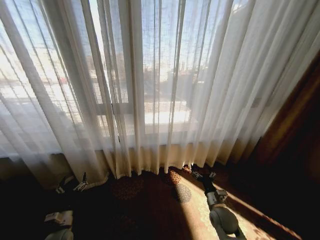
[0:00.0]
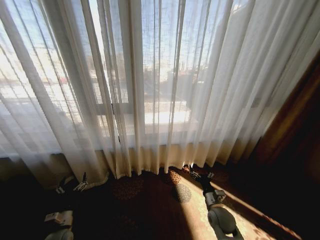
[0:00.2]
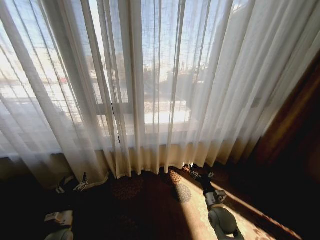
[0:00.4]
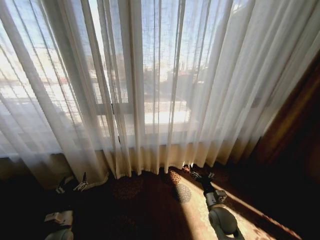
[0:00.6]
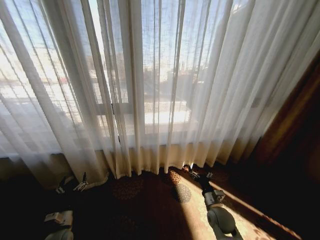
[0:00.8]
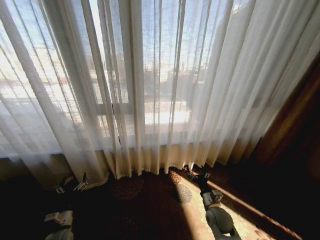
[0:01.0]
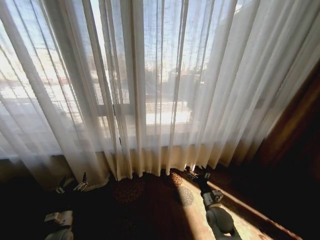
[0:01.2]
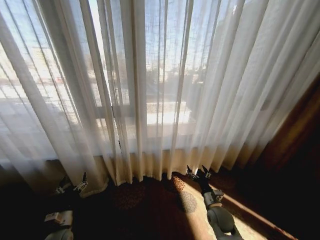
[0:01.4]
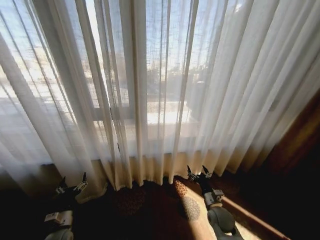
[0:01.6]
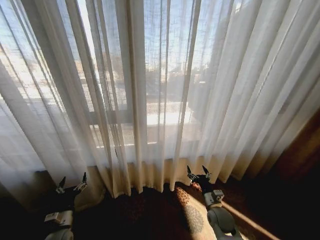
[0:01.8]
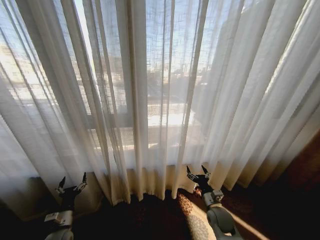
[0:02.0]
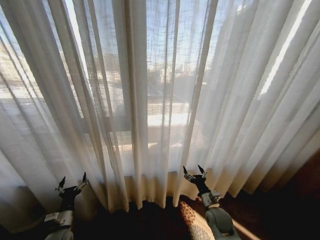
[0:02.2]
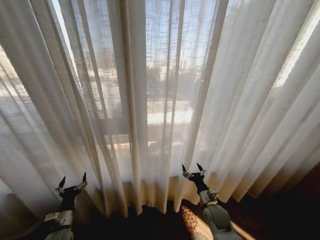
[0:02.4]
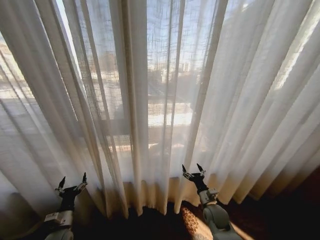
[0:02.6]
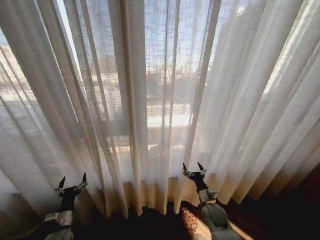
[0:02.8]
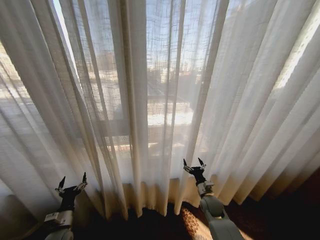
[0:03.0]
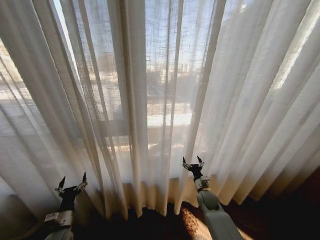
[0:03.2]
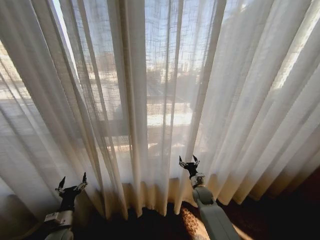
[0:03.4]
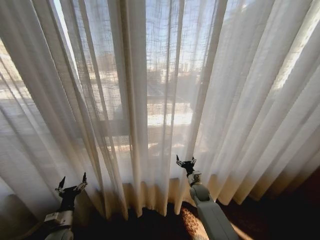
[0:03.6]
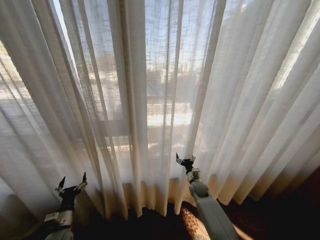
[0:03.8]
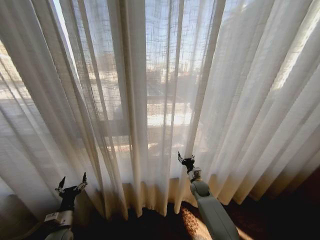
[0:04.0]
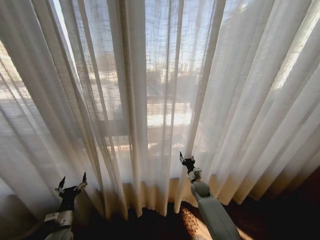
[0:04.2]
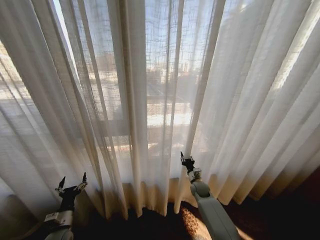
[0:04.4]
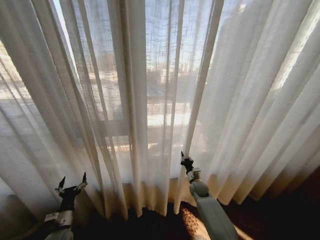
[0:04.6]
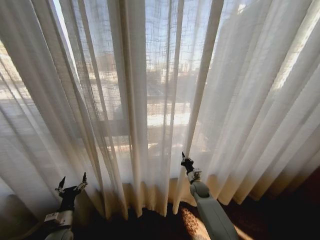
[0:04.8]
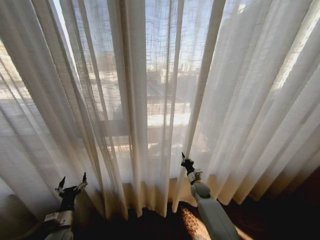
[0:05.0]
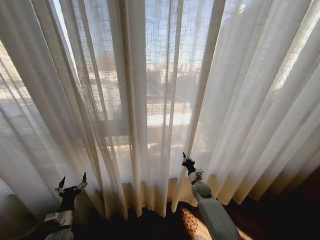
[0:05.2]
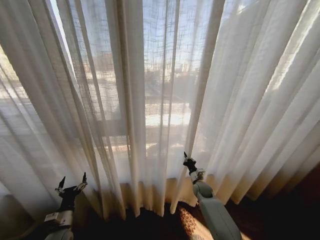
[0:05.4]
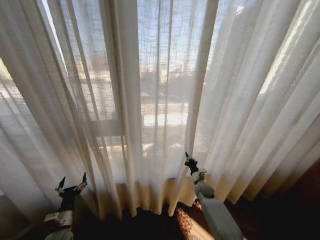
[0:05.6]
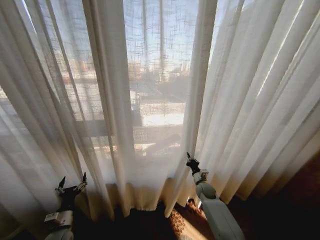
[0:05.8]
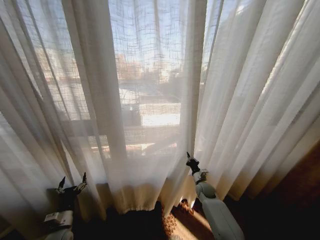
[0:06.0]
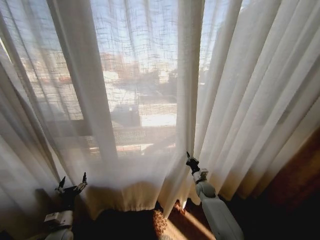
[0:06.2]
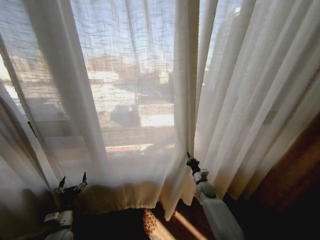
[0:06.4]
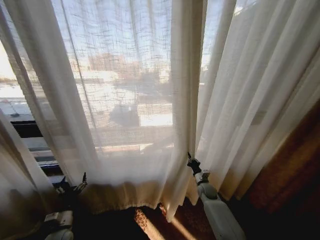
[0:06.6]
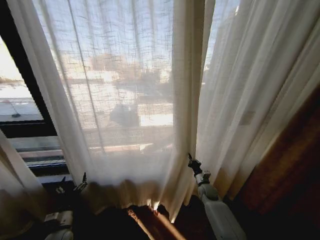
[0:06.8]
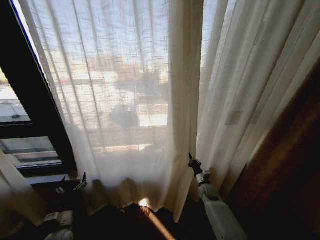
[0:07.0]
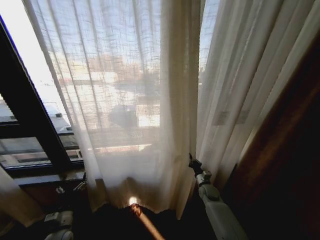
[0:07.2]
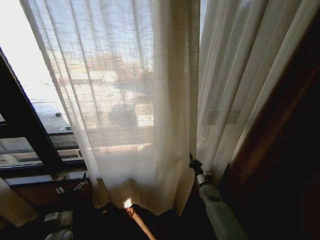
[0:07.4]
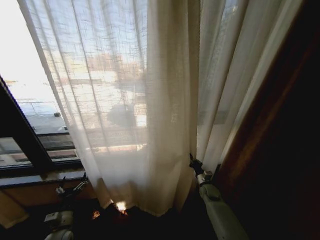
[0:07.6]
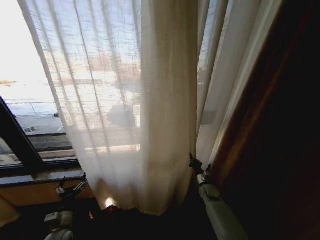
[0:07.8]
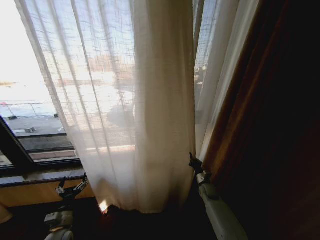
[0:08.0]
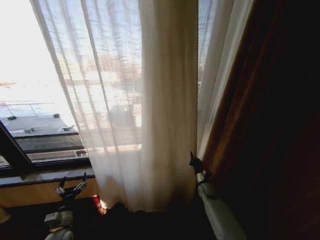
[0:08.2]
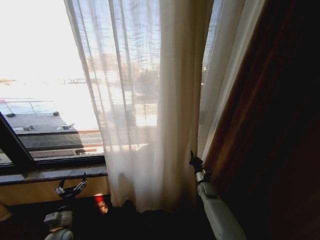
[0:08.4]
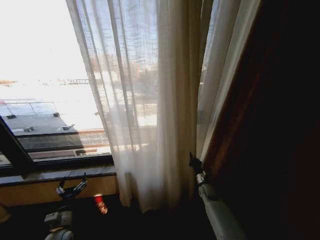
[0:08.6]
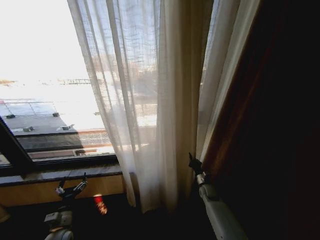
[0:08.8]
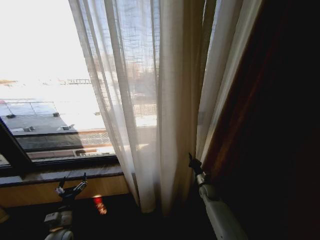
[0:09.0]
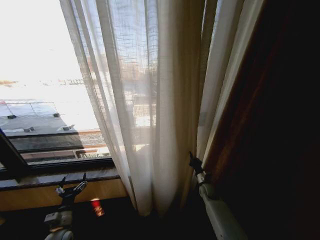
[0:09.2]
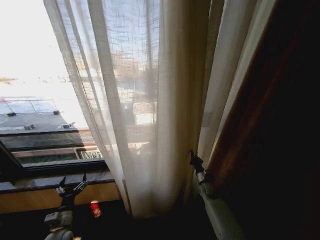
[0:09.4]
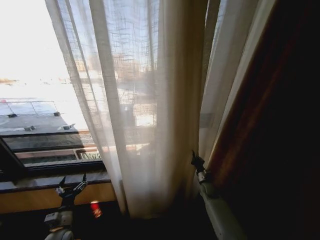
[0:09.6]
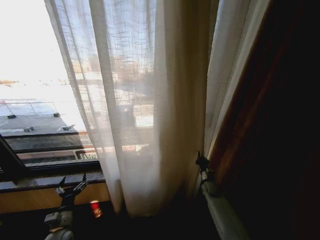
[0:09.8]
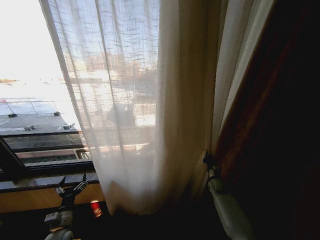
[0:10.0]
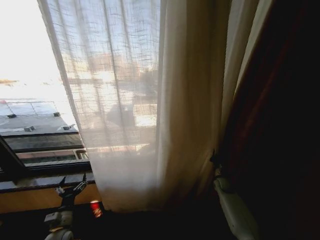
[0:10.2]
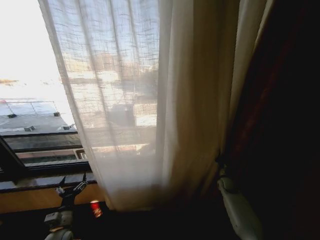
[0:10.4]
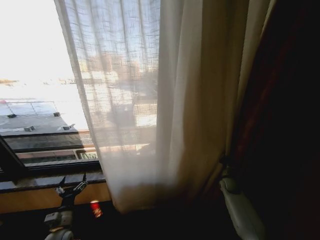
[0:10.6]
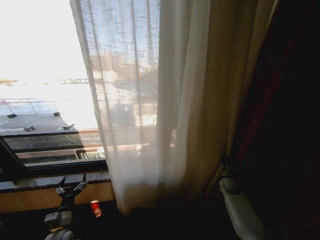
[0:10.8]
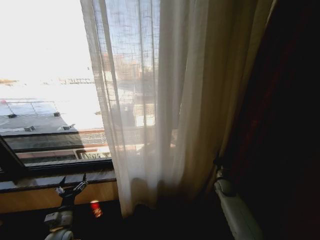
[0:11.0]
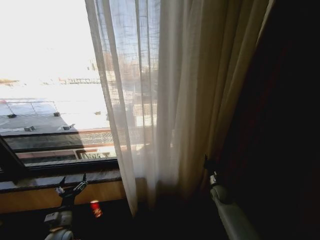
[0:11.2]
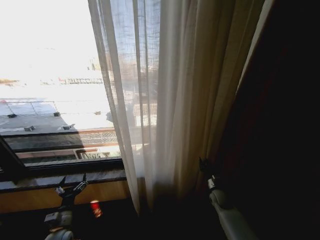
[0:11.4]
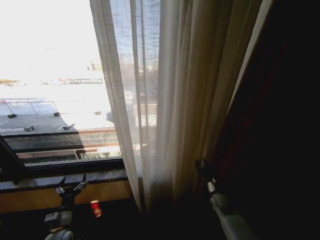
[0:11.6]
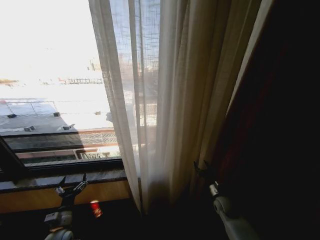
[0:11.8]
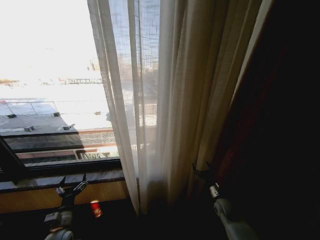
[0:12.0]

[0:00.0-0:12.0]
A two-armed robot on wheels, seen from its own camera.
Task of the whole recording: Open the curtains by pulling them apart, changing their state from closed to fully open.
0:01.6 to 0:03.0: The right gripper moves approximately 5 cm.
0:03.0 to 0:04.4: The right gripper goes approximately 10 cm forward, and closes.
0:04.4 to 0:06.0: The right gripper closes its fingers.
0:09.0 to 0:10.4: The right gripper moves to the right, some 10 cm.
0:10.4 to 0:12.0: The right gripper goes roughly 15 cm backward and to the left, and opens up.

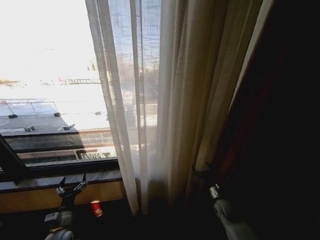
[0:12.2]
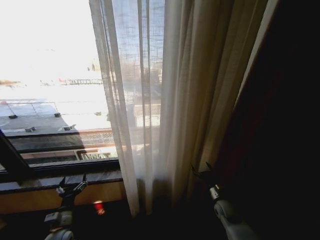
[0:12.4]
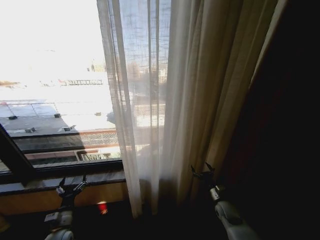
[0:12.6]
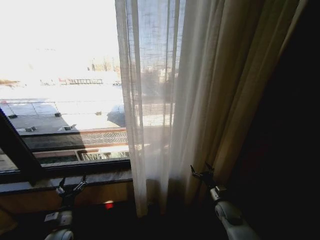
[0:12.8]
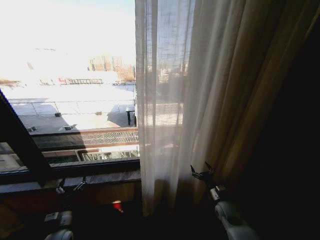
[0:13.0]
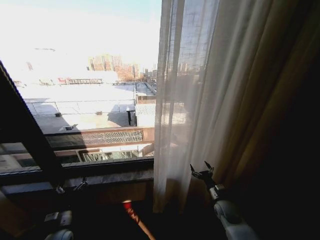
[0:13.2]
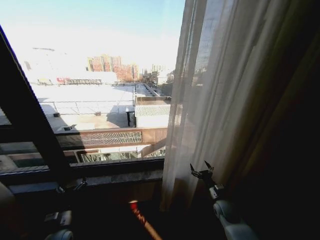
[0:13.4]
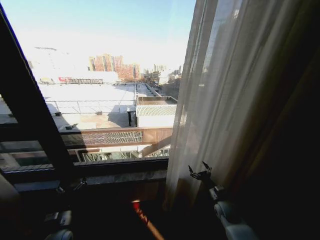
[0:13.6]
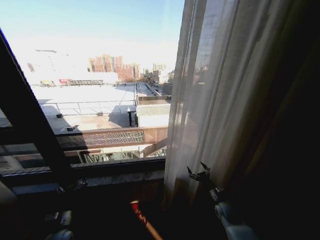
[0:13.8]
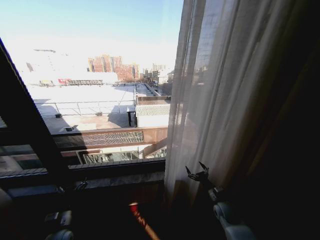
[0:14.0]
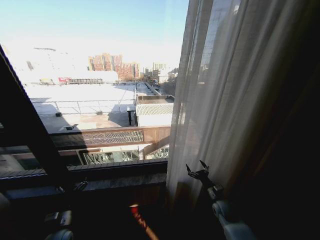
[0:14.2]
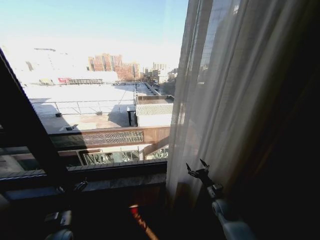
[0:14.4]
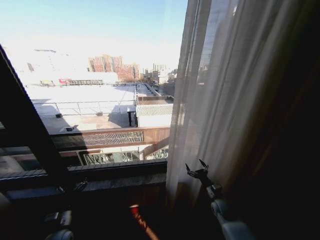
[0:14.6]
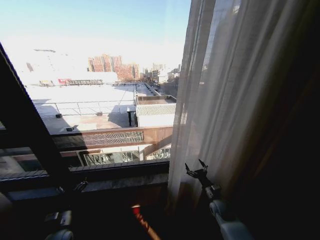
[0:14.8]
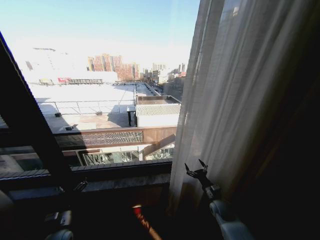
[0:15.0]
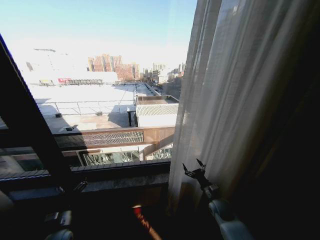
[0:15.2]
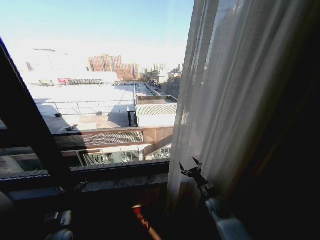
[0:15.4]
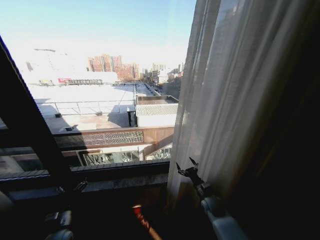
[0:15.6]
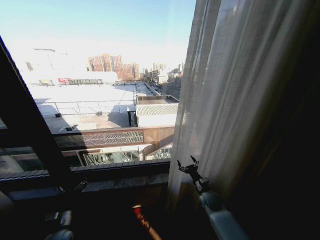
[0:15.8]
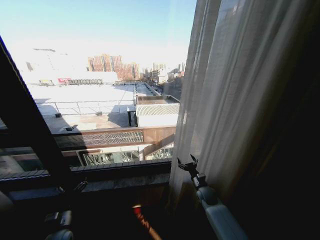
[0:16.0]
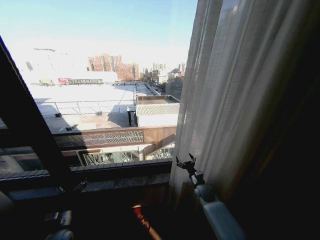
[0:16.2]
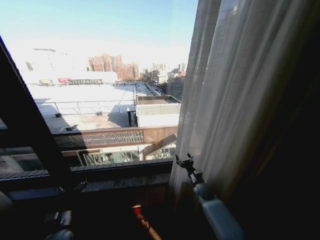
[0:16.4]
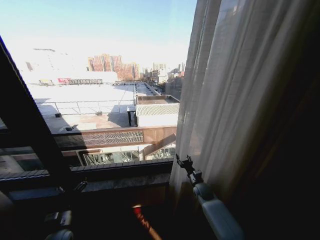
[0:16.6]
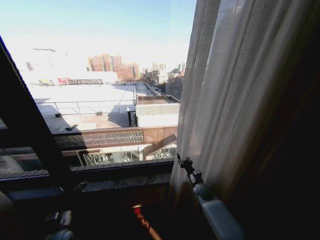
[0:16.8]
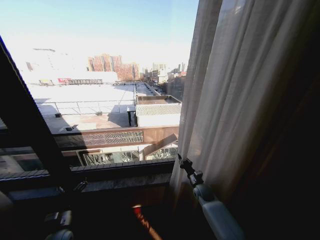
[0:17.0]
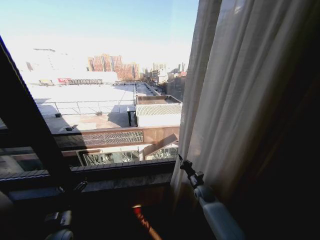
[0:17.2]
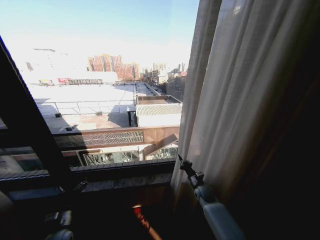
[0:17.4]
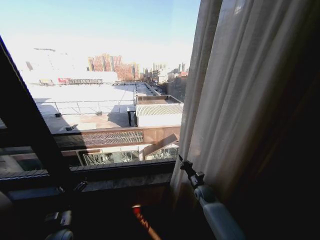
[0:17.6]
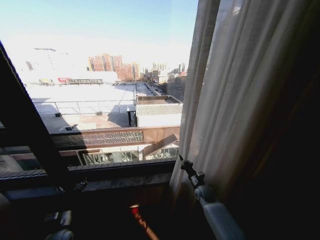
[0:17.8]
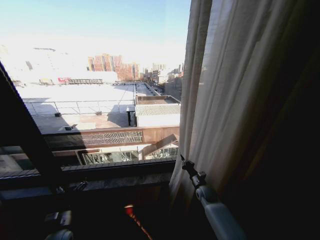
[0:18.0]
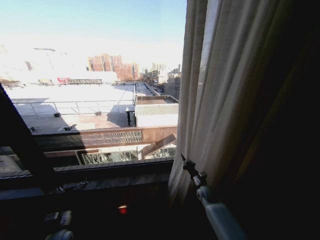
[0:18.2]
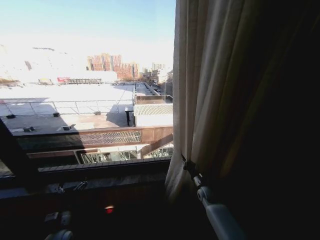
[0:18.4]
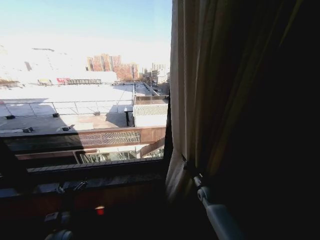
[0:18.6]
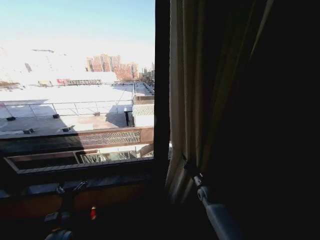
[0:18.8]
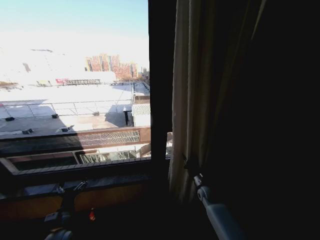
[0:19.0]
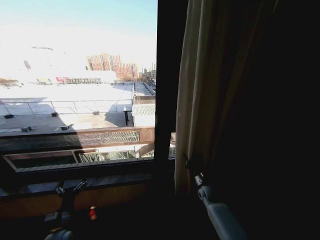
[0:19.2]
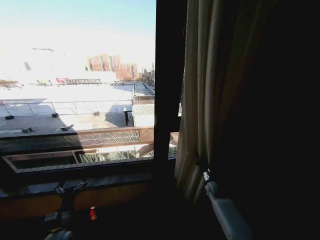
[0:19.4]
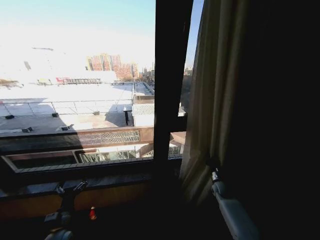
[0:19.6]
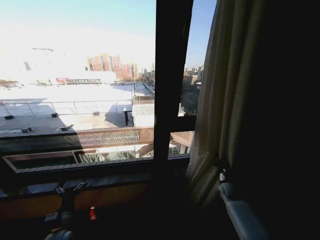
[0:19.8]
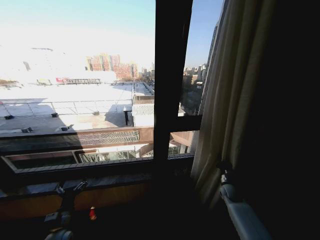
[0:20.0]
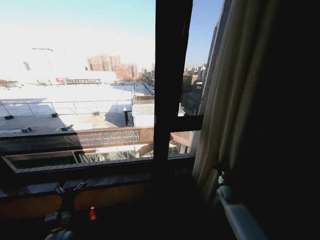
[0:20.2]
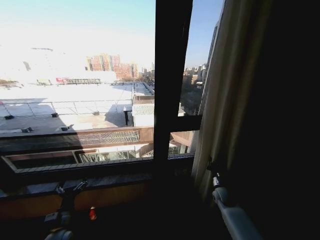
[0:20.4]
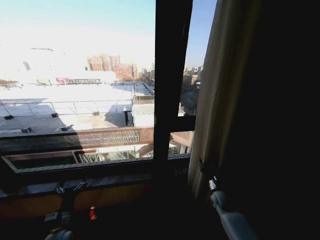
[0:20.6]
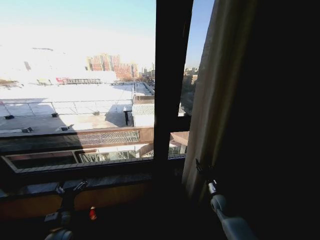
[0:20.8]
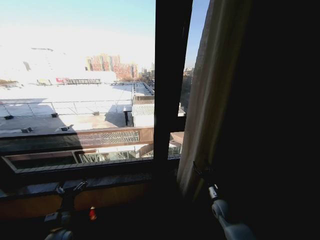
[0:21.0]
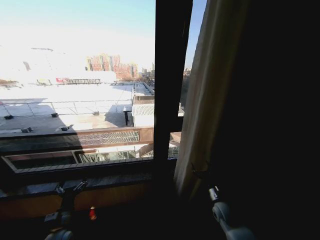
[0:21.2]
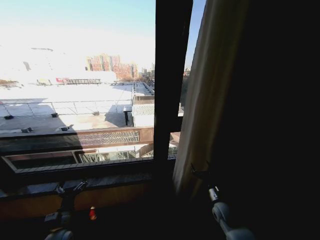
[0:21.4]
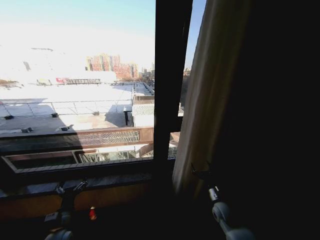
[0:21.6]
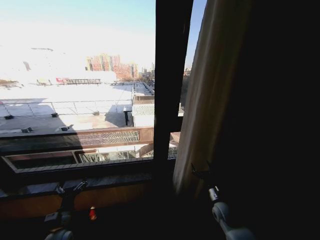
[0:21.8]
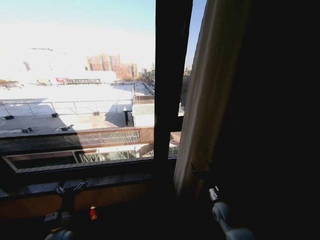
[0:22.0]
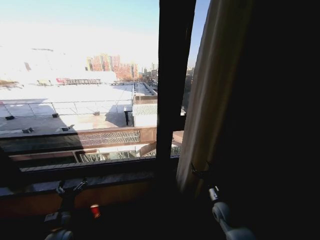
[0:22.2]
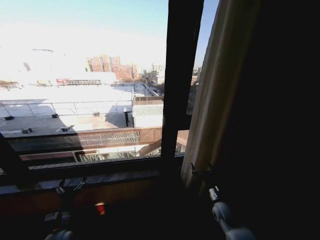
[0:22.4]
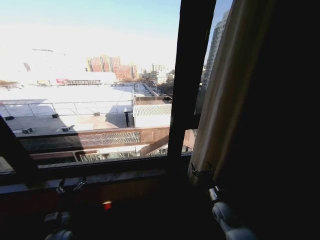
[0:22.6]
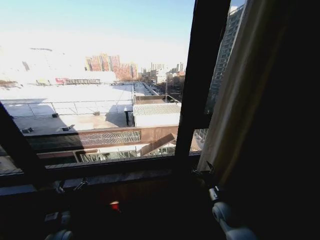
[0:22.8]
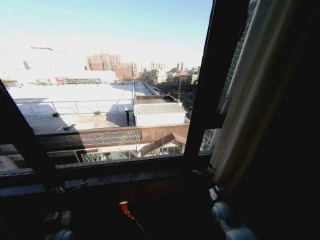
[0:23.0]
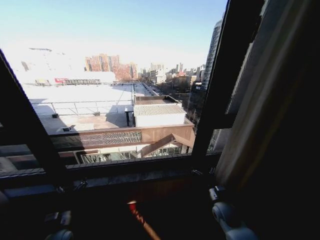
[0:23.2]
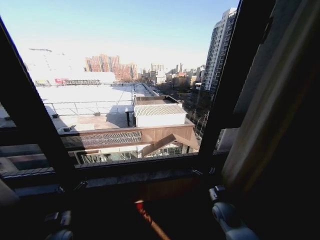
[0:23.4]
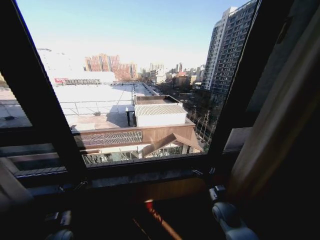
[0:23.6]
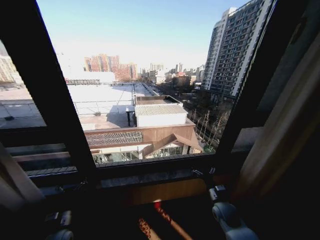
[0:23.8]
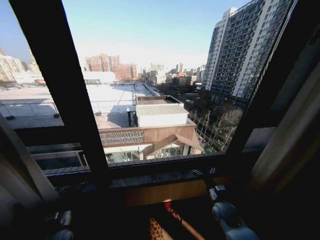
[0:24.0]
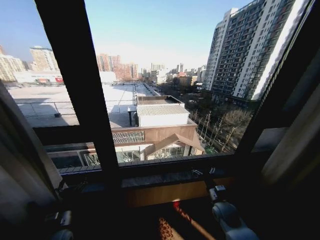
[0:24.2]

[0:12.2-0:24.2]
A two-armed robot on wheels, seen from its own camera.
Task of the whole recording: Open the curtains by pulling them apart, changing their state from closed to fully open.
0:13.8 to 0:15.2: The grippers make only small movements.
0:15.2 to 0:16.6: The right gripper shifts roughly 10 cm forward and to the left.
0:16.6 to 0:18.2: The right gripper closes its fingers.
0:18.2 to 0:19.8: The right gripper is displaced to the right by some 10 cm.
0:19.8 to 0:21.2: The right gripper goes approximately 15 cm backward and to the left, and opens up.
0:21.2 to 0:22.6: Neither gripper changes place.
